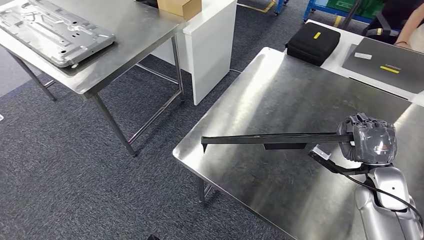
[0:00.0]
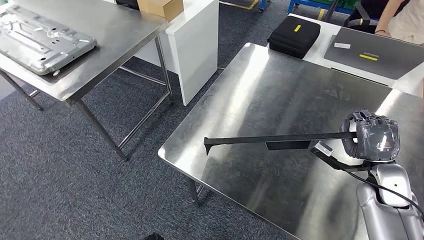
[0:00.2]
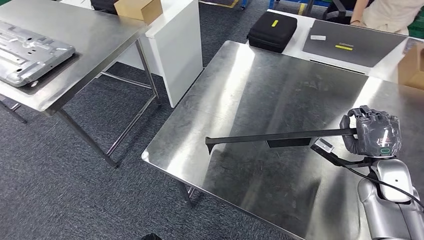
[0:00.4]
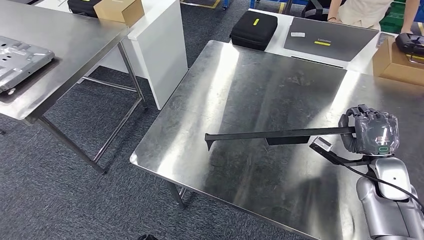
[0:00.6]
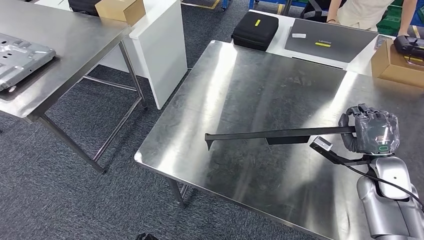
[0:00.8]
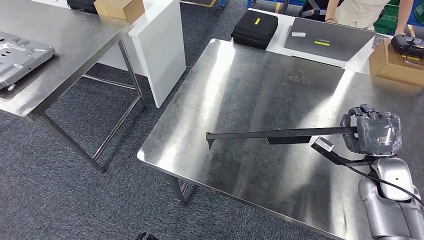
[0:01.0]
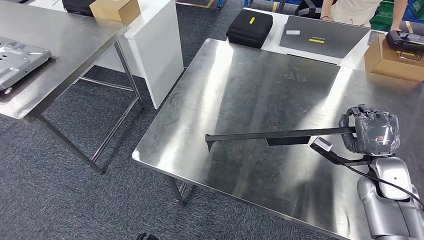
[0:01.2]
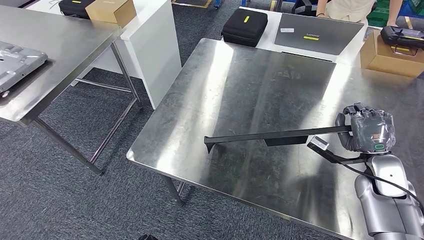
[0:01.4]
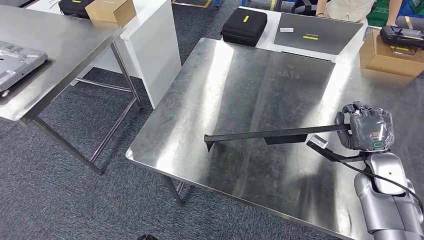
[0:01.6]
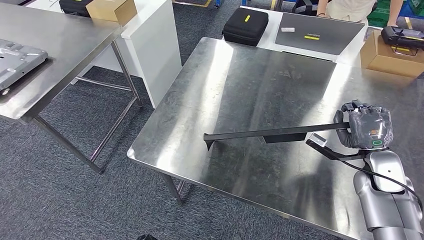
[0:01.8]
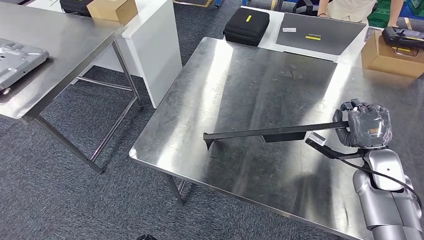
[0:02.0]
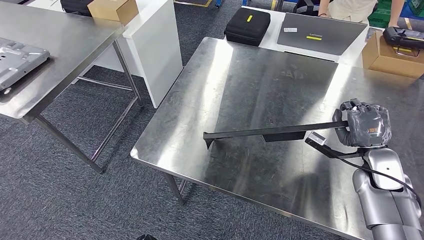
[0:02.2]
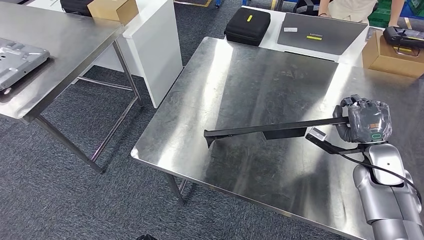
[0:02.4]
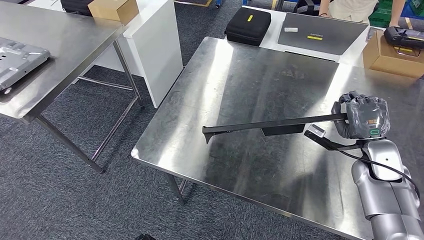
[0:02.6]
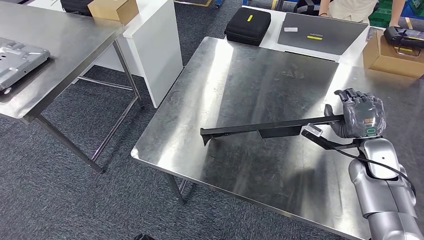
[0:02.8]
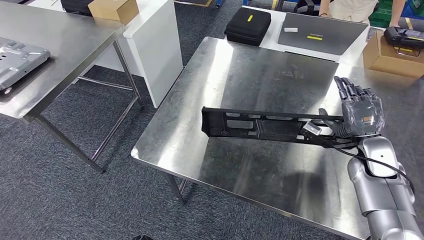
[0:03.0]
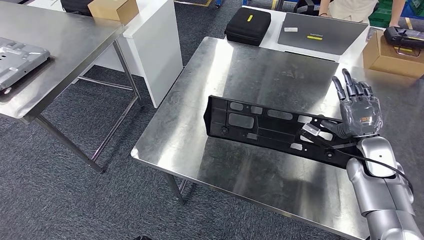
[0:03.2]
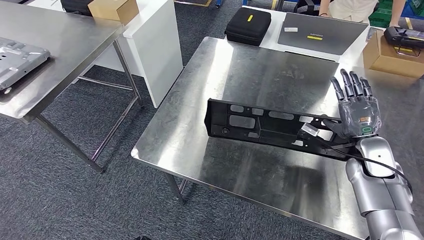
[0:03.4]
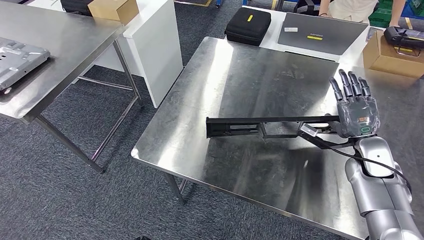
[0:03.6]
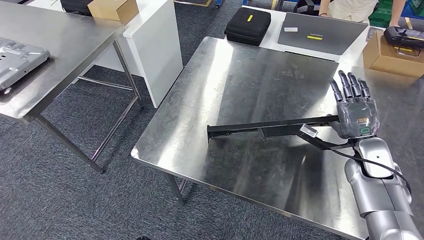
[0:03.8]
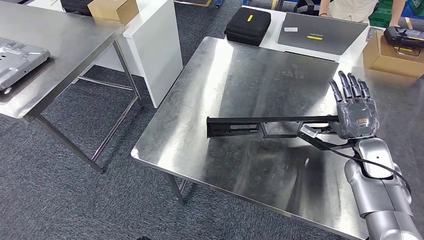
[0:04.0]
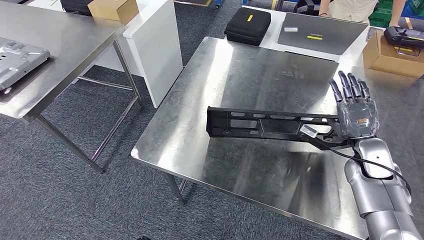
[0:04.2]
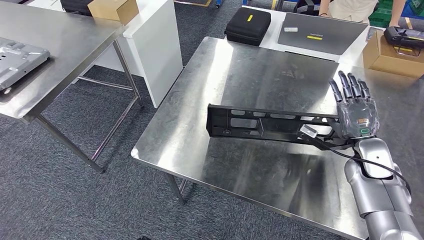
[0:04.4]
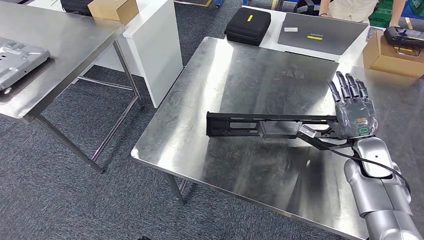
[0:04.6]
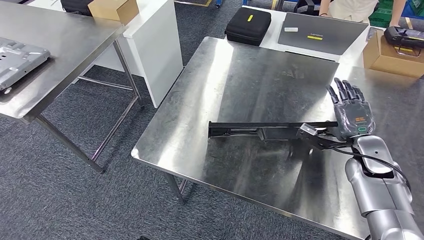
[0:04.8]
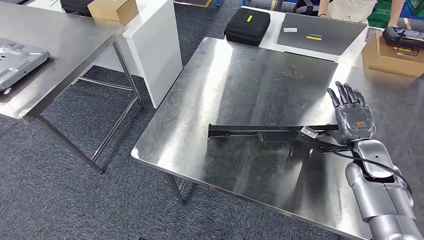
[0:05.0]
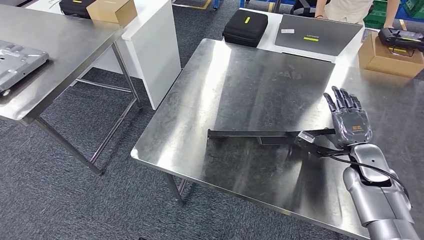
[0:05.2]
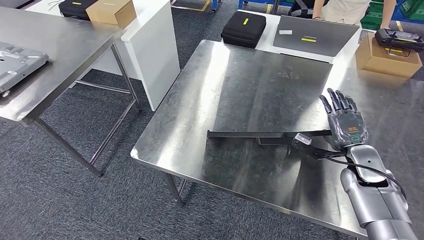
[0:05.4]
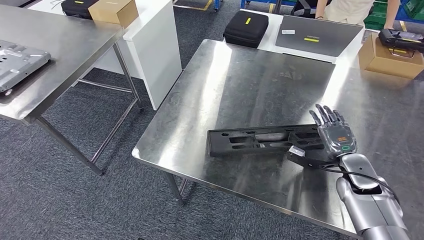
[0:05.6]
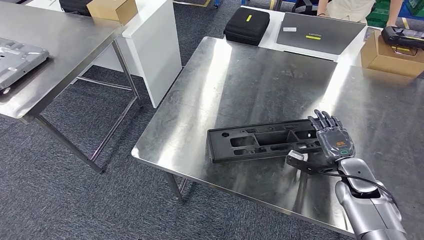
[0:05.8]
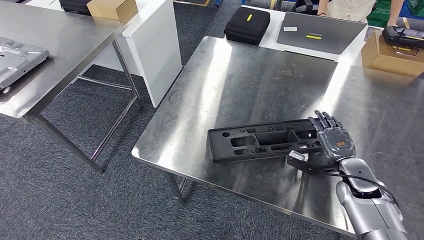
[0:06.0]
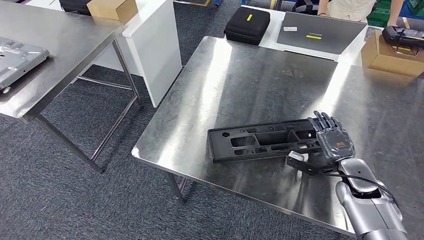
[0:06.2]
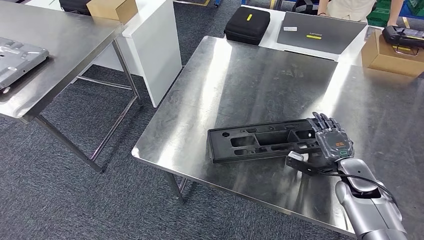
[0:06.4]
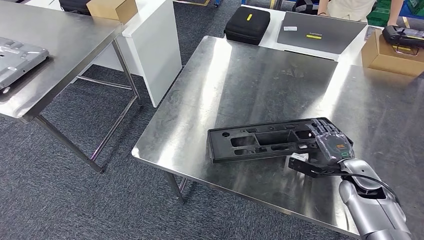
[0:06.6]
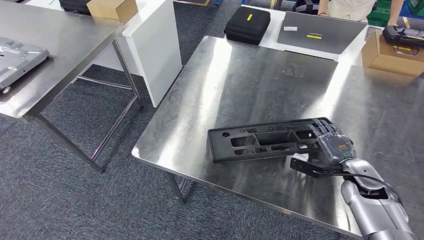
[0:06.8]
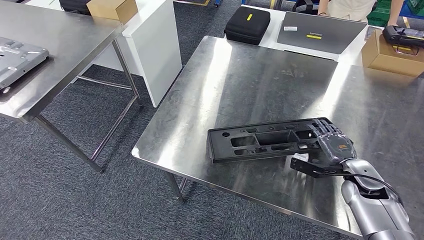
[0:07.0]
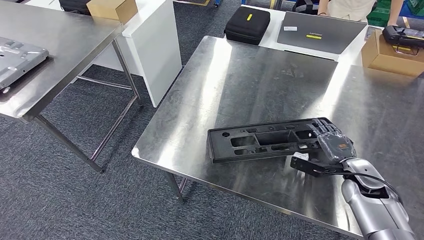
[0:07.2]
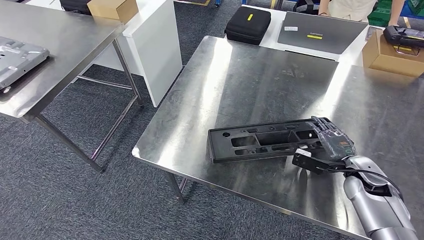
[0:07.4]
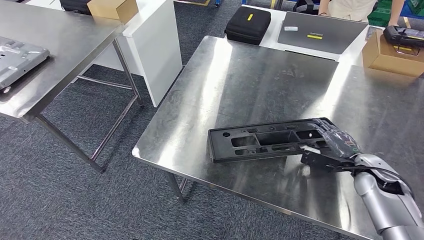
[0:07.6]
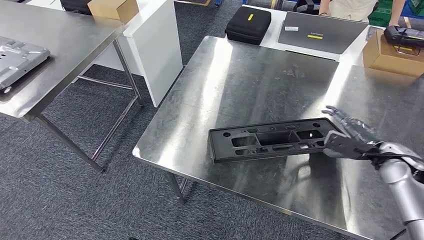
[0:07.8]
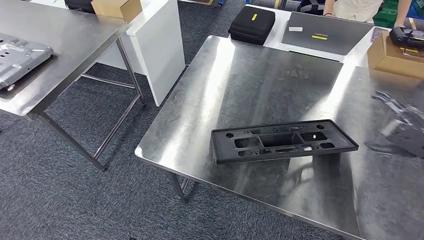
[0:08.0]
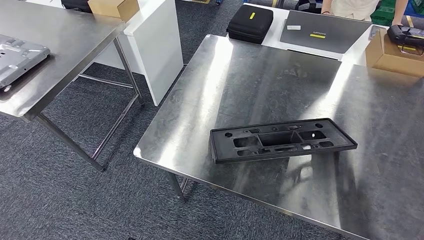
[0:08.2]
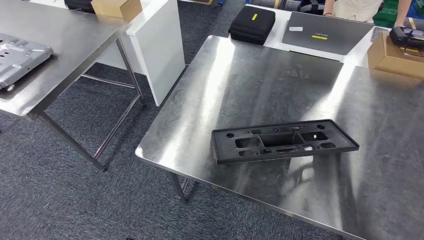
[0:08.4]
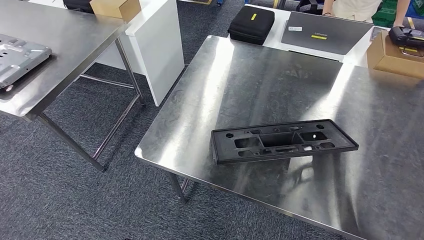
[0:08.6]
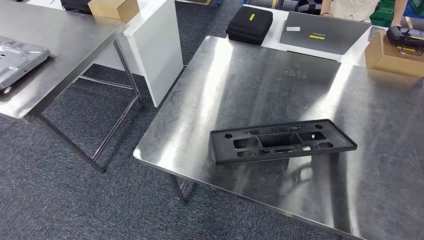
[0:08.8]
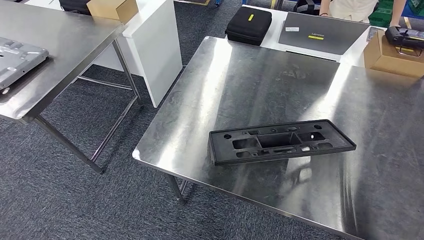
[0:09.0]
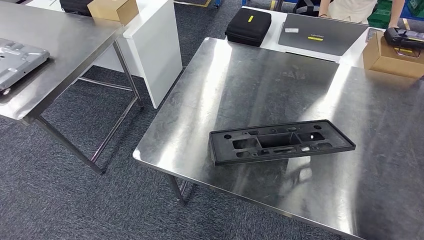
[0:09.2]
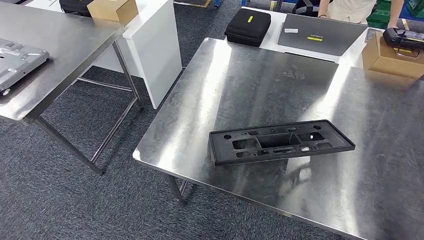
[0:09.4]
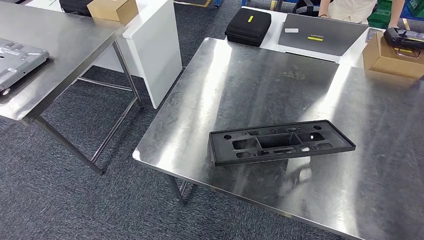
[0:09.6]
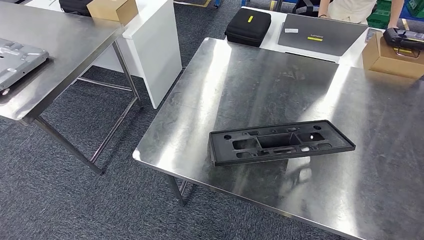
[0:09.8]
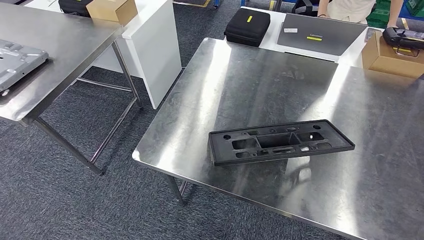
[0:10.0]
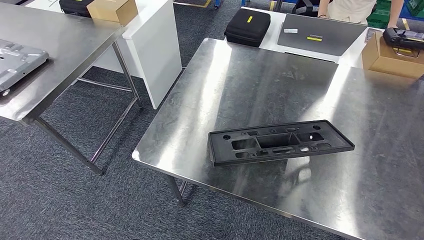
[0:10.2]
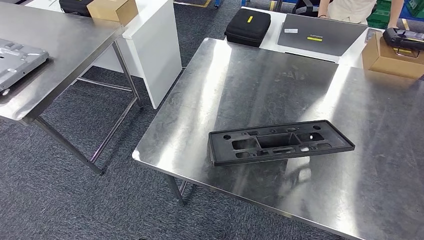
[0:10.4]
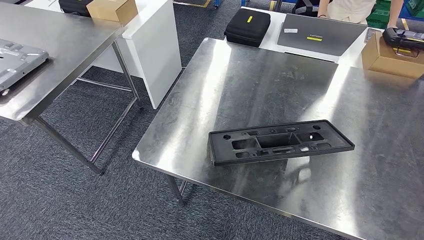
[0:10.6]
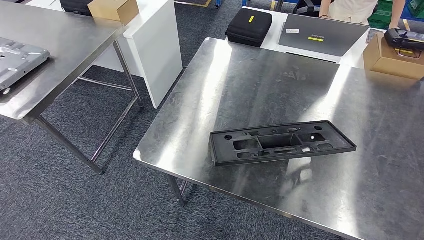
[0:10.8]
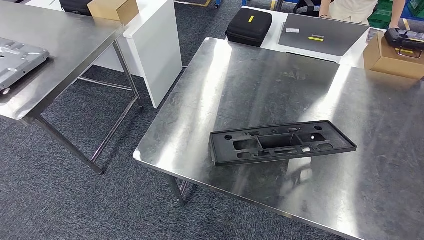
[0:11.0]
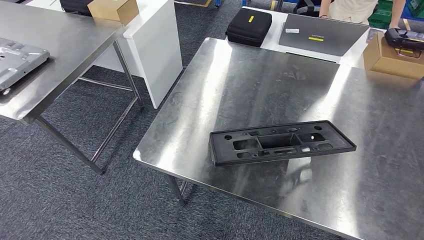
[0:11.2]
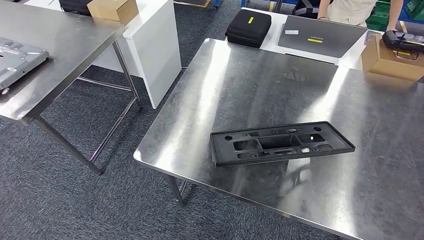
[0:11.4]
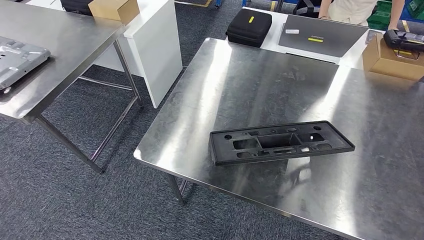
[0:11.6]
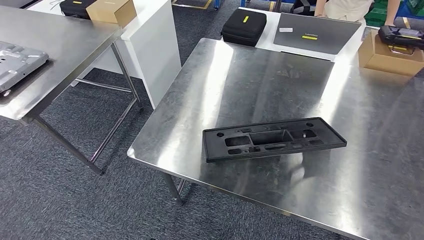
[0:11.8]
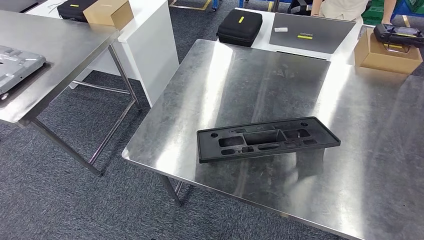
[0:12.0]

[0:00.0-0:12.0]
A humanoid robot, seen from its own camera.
Step, 0:00.0 to 0:10.0: Insert the large material into the corresponding slot on the workbench.
0:03.0 to 0:04.4: The two hands keep their place.
0:04.4 to 0:06.0: The right hand is displaced downward by roughly 5 cm.
0:07.6 to 0:09.0: The right hand goes about 40 cm backward and upward.
0:09.0 to 0:10.4: The right hand travels downward by some 40 cm.

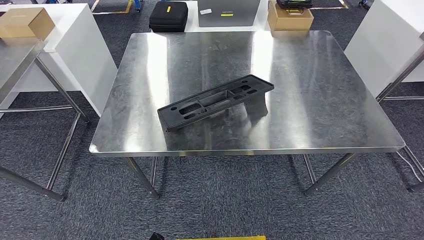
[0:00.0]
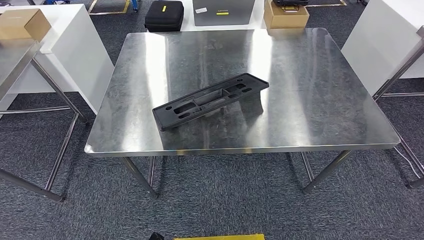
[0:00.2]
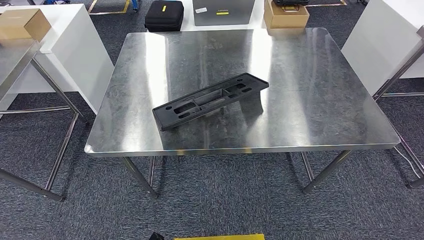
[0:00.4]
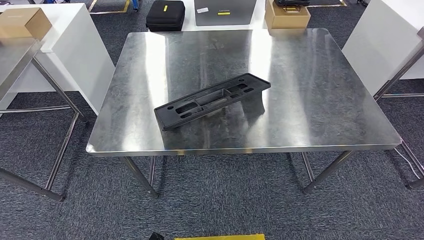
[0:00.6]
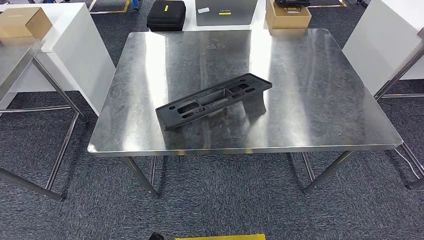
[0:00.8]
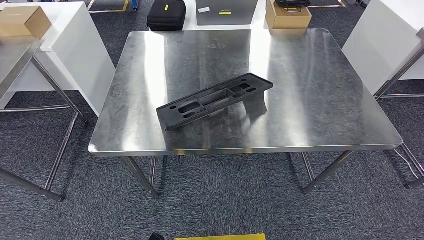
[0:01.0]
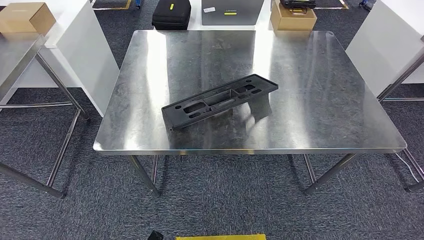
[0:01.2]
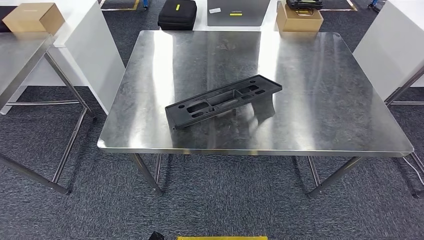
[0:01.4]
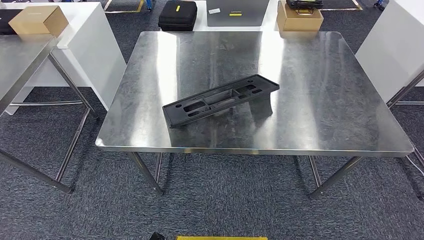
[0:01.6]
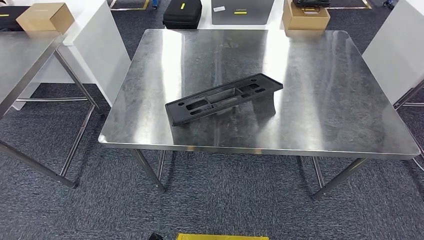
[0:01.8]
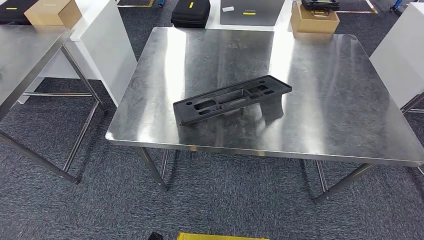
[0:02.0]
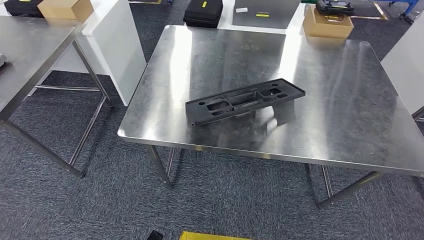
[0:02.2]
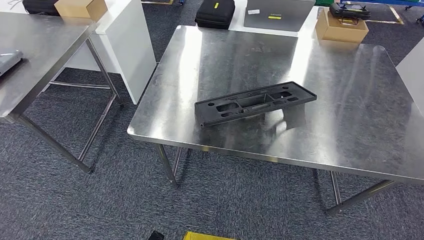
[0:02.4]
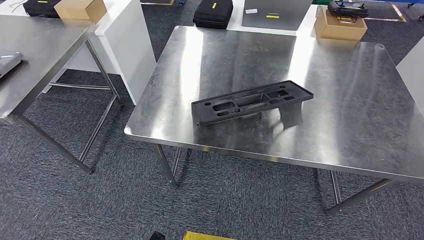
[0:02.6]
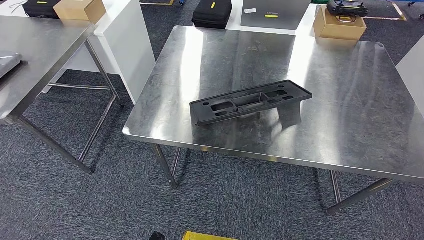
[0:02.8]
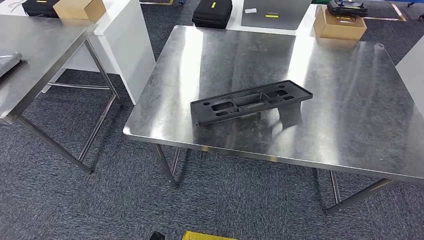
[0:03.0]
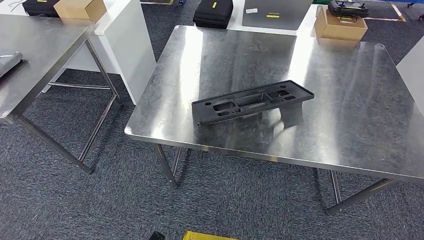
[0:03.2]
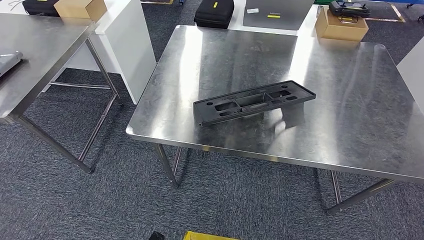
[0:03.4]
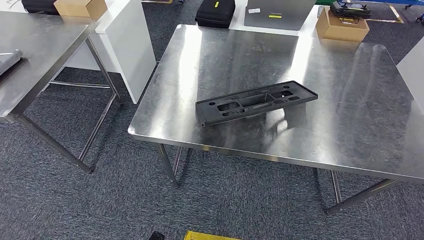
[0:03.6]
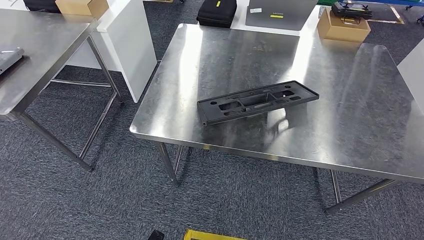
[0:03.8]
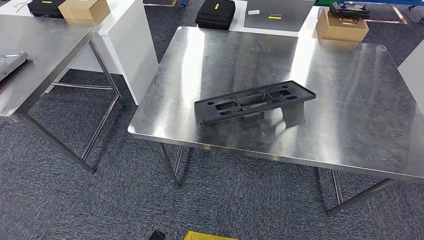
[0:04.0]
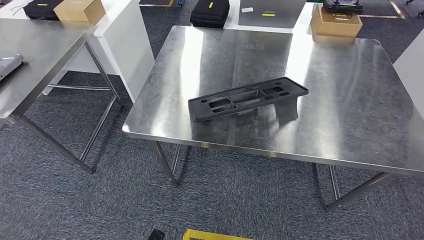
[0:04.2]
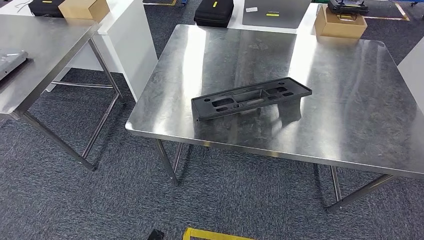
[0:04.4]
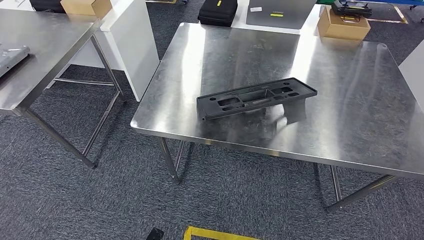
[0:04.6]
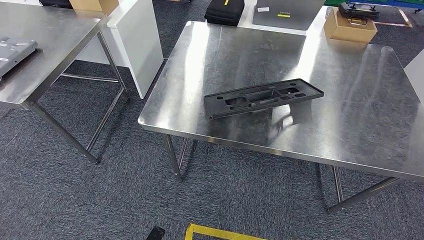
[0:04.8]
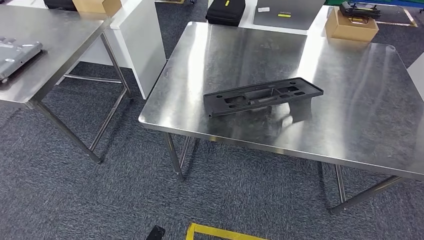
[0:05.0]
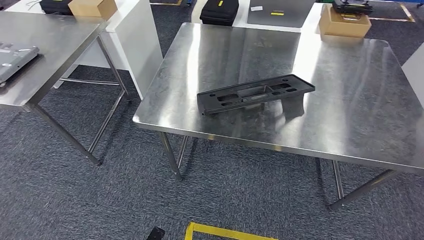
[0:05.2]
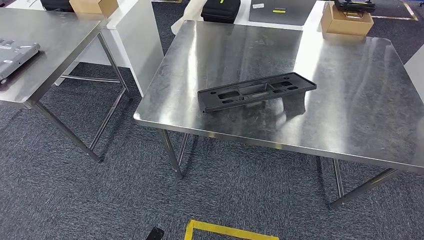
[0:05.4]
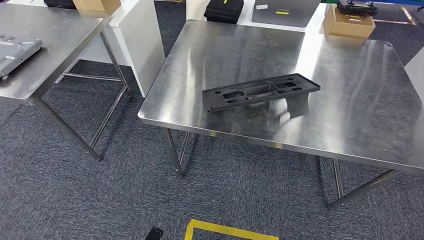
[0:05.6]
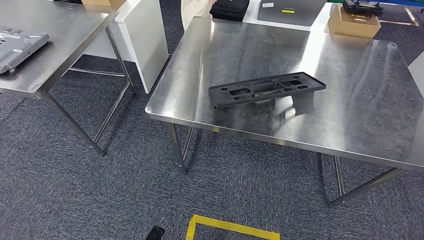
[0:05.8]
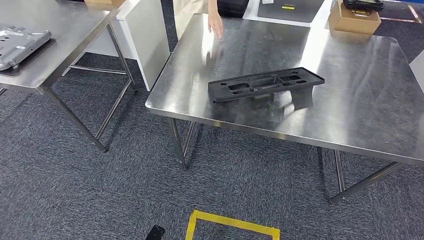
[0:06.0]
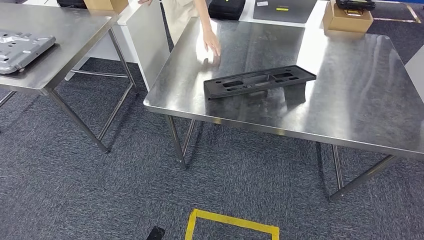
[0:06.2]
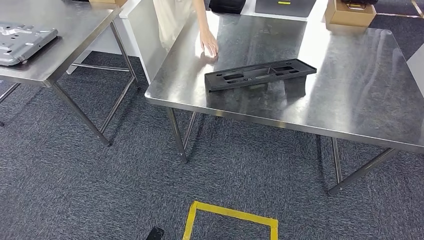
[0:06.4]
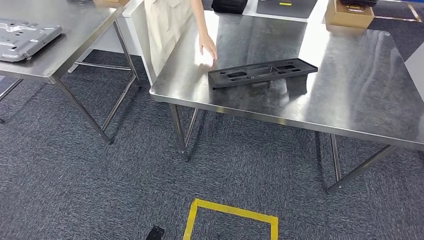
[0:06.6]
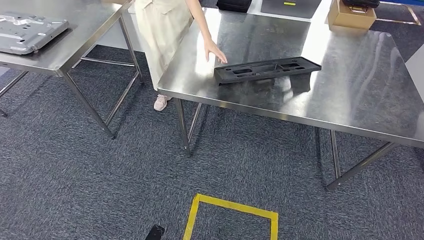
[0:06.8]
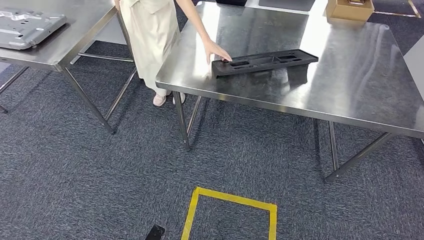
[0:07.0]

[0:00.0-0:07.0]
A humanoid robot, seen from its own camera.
0:02.8 to 0:04.2: The two hands keep their place.
